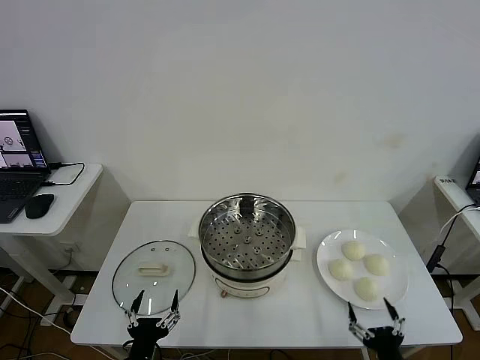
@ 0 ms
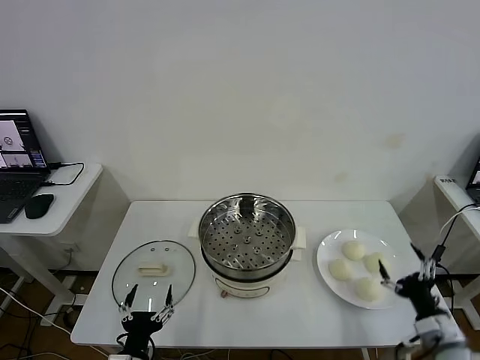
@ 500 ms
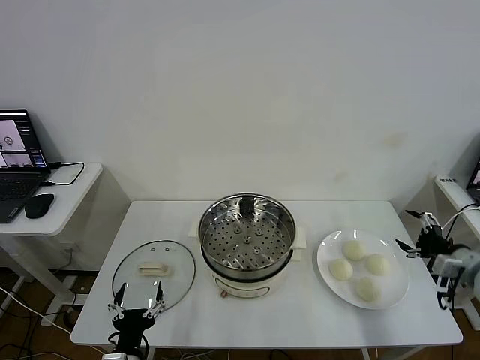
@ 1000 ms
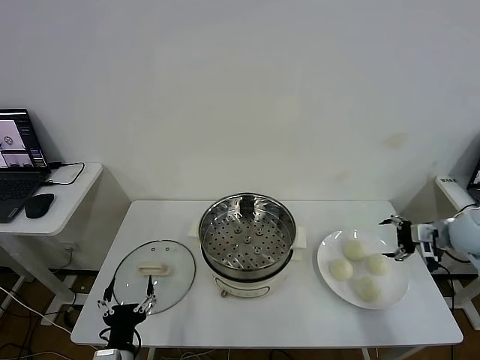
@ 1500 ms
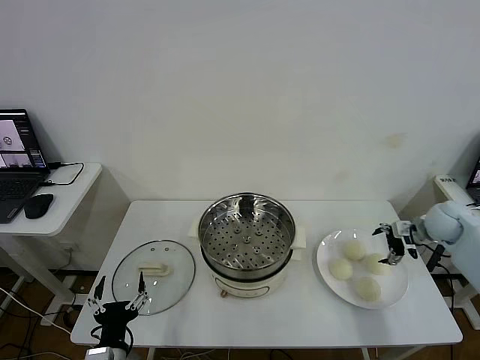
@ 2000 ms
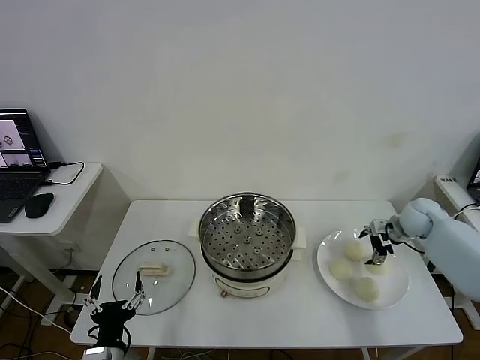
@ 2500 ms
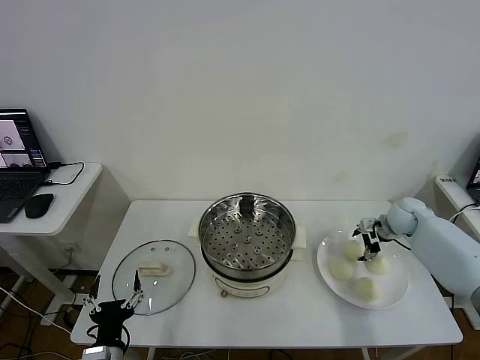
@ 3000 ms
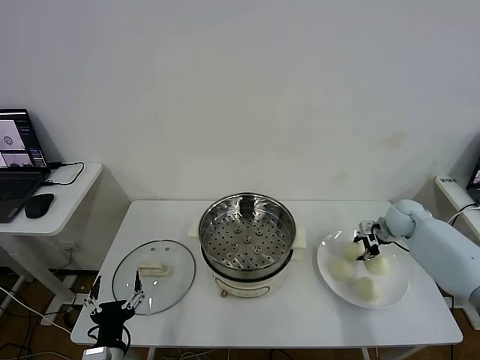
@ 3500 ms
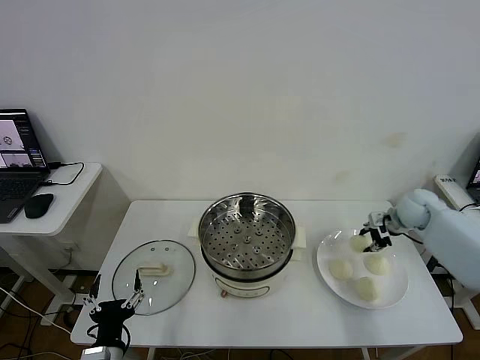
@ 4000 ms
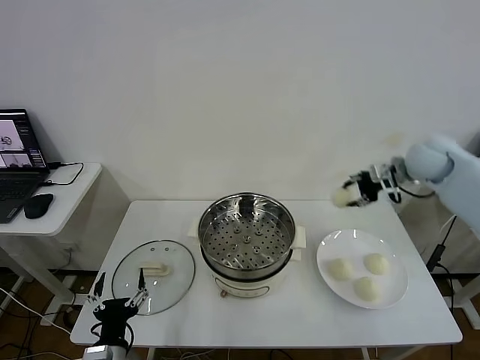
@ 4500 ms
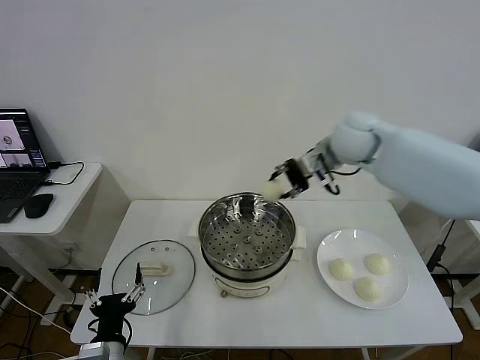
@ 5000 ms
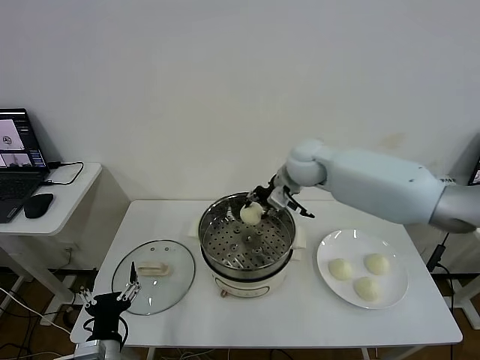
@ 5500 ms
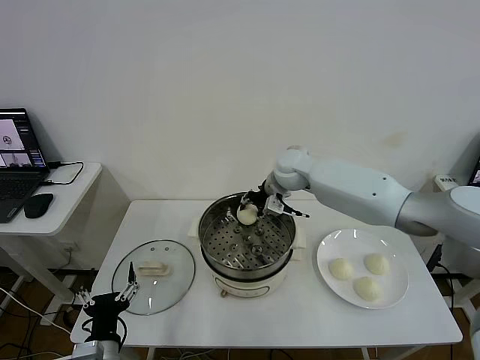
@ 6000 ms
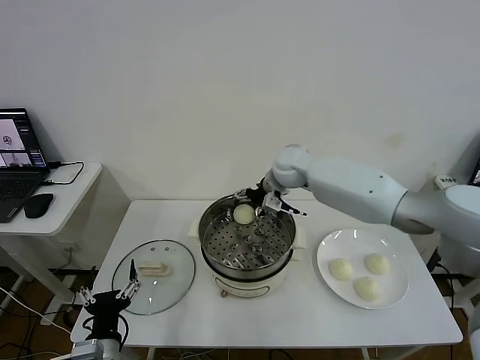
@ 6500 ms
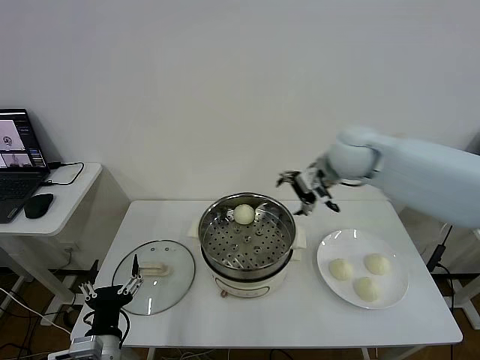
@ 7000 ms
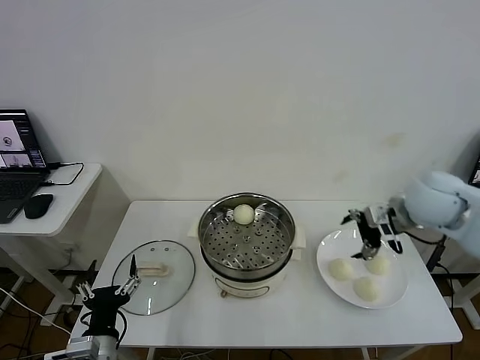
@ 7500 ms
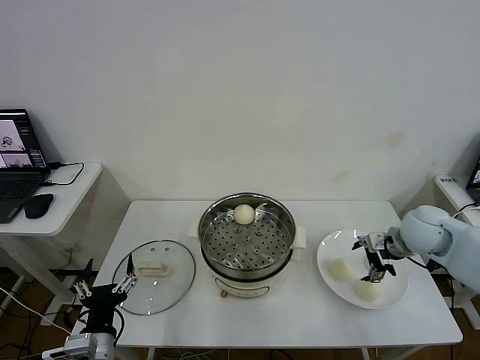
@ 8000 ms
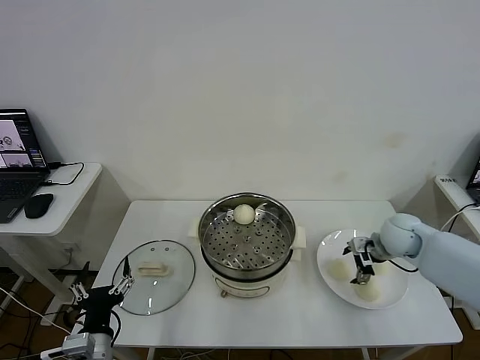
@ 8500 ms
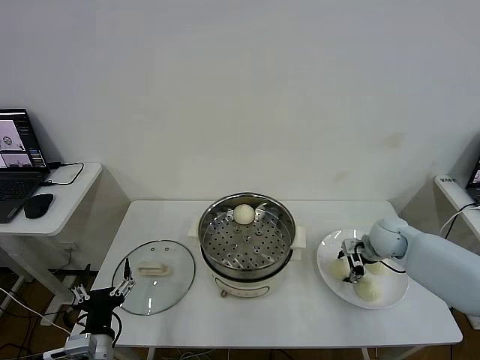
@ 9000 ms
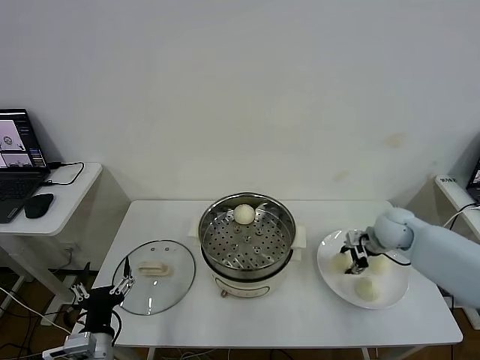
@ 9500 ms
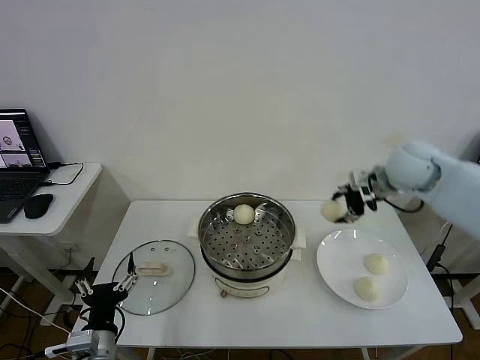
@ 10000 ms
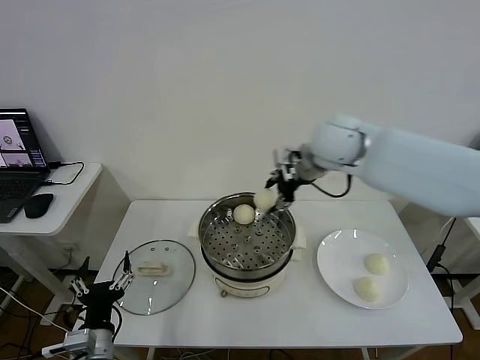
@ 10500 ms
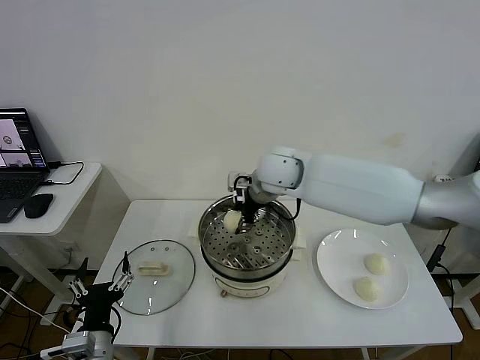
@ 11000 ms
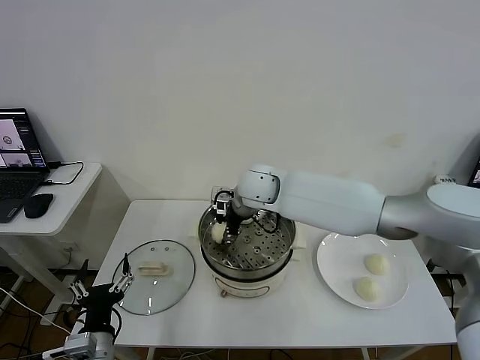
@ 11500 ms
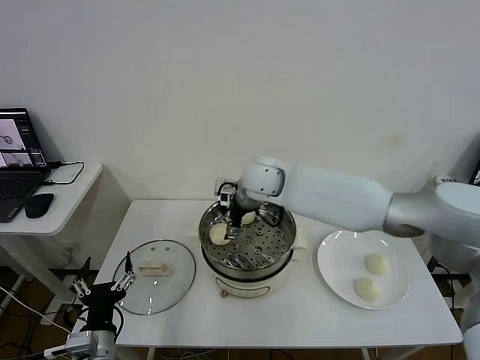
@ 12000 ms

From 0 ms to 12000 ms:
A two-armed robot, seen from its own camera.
Step, from 0 ms to 3000 ms: Grasp the baozi in the plate with right gripper.
Step, from 3500 ms to 6000 ms: Place the baozi on the steamer with right gripper.
Step, from 7000 ms to 9000 ms: Grasp the baozi in the plate with right gripper.
Step, from 9500 ms to 11500 ms: Place the baozi on the steamer with right gripper.
From 2000 ms to 4000 ms: The right gripper shifts by some 5 cm, and closes its fingers.
From 4000 ms to 6000 ms: The right gripper travels to the left by about 35 cm.
From 6000 ms to 8000 ms: The right gripper heads to the right and backward, covering some 30 cm, and opens up.
From 8000 ms to 10000 ms: The right gripper travels upward and to the left by some 20 cm, and closes up.
From 10000 ms to 12000 ms: The right gripper goes some 25 cm to the left, and opens.

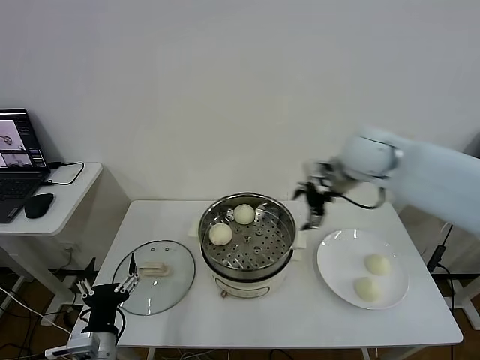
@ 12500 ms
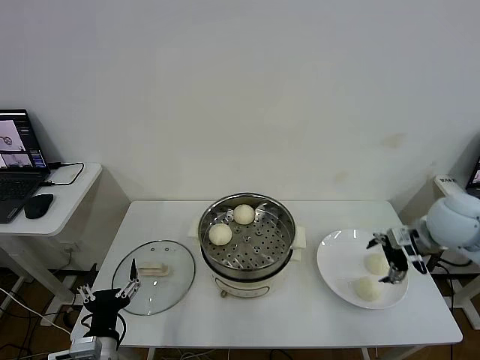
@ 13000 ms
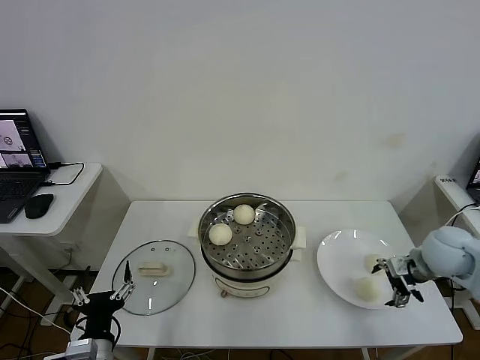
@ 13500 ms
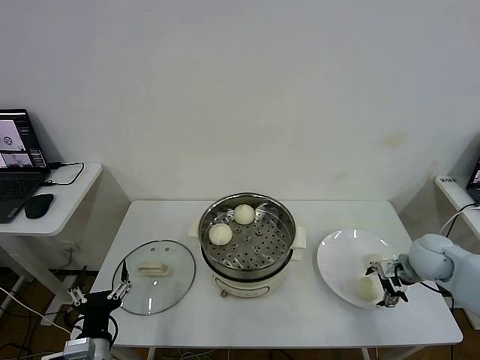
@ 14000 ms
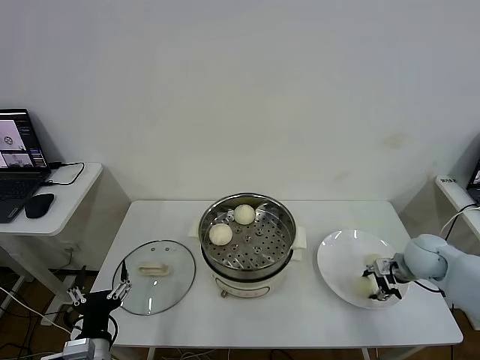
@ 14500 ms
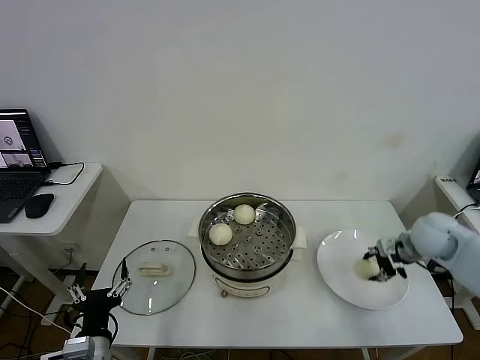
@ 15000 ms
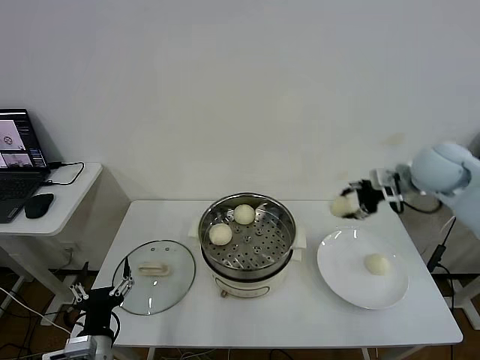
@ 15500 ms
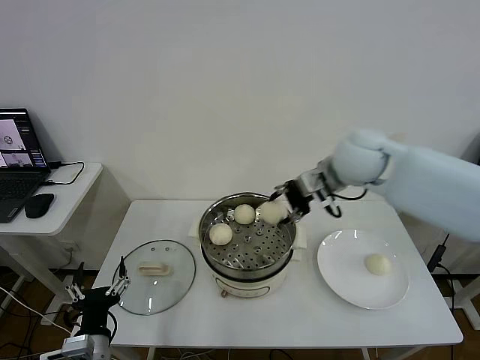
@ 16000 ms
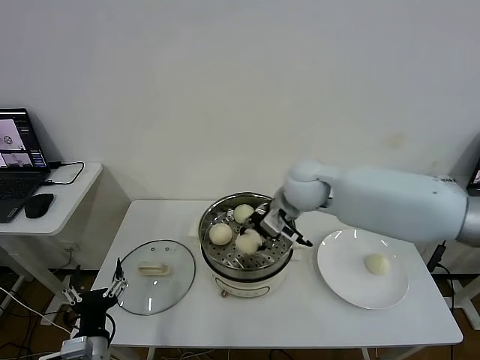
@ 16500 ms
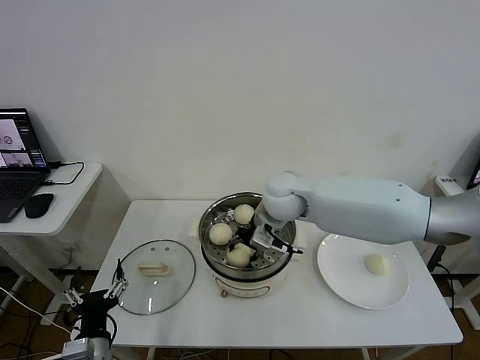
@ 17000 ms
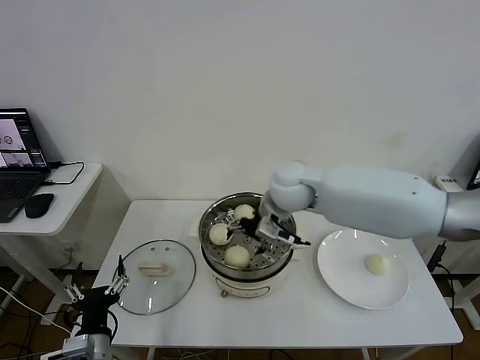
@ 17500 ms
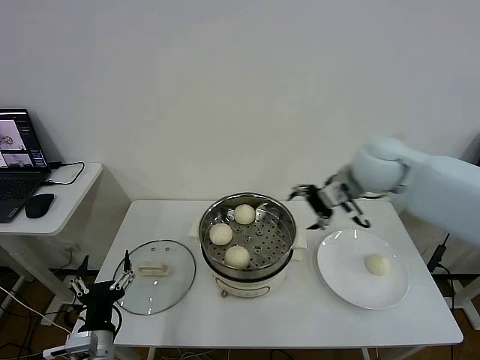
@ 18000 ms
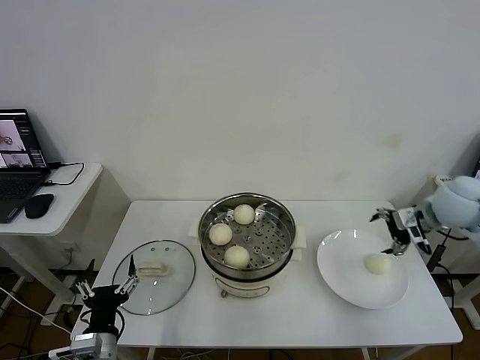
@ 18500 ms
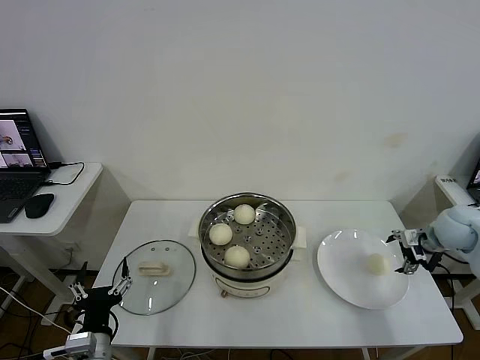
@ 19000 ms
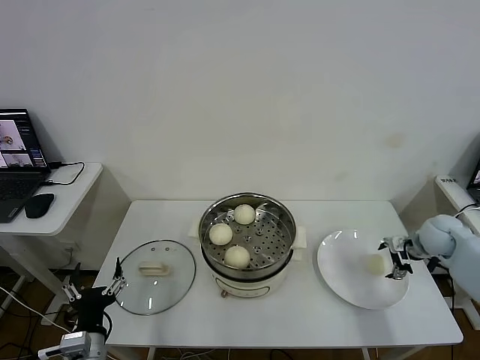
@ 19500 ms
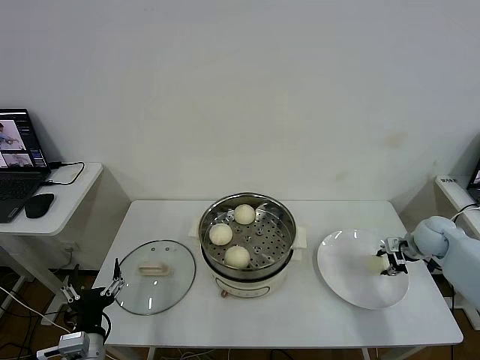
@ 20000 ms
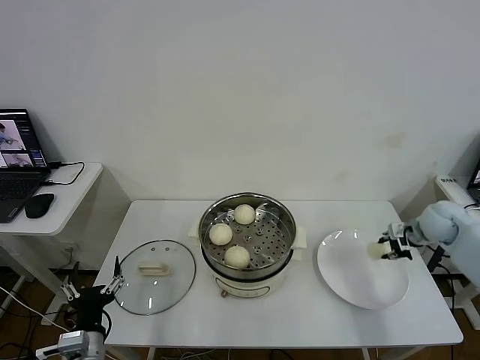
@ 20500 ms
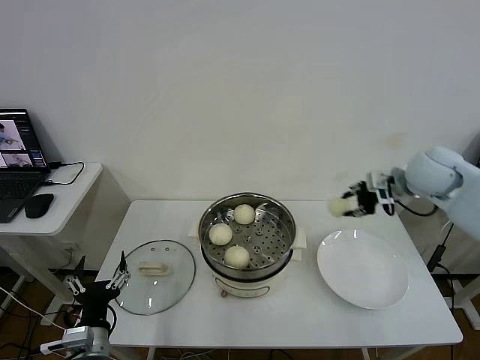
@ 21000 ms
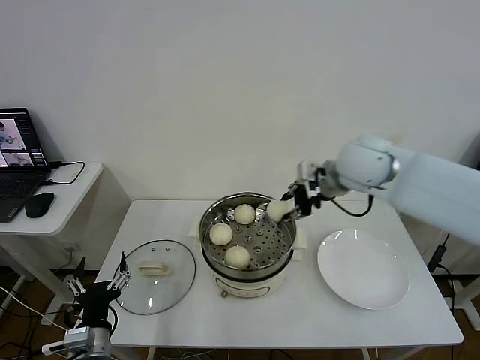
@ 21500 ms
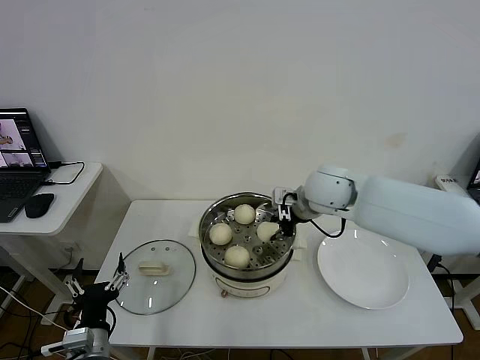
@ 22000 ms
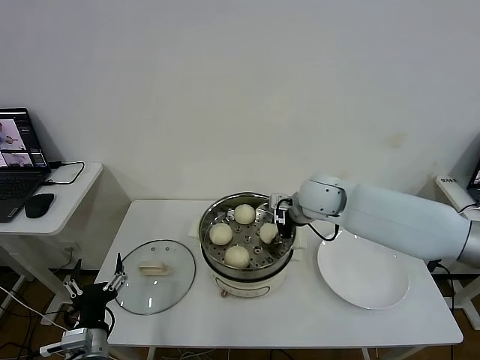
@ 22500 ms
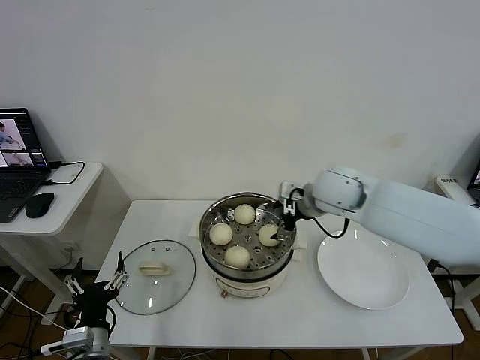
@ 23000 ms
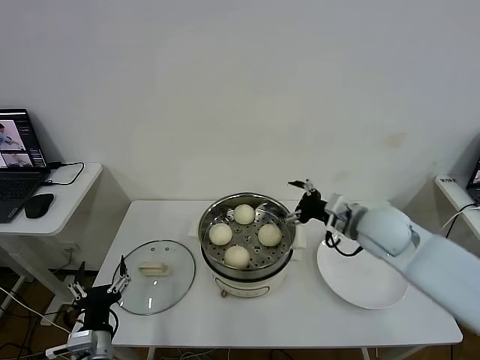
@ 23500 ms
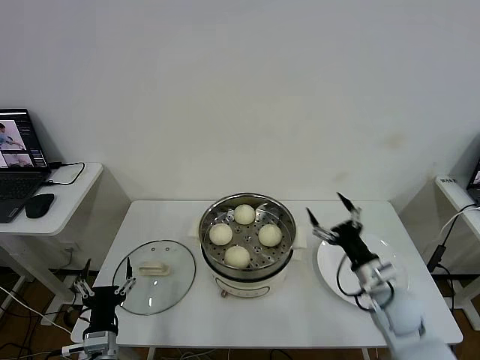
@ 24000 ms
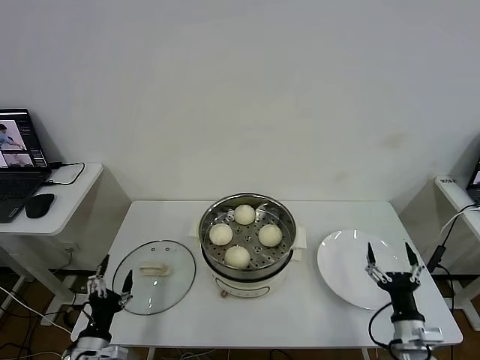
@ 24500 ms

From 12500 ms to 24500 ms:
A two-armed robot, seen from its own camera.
Step, from 12500 ms to 14500 ms: Grasp the baozi in the plate with right gripper.
Step, from 15000 ms to 17000 ms: Place the baozi on the steamer with right gripper.
Step, from 17500 ms to 20000 ms: Grasp the baozi in the plate with right gripper.
Step, from 20500 ms to 22500 ms: Place the baozi on the steamer with right gripper.
From 12500 ms to 14500 ms: The right gripper is displaced downward and to the right by approximately 25 cm, and closes its fingers.
From 14500 ms to 16500 ms: The right gripper travels to the left and upward by about 35 cm.
From 16500 ms to 18500 ms: The right gripper travels to the right by approximately 30 cm, and opens up.
From 18500 ms to 20500 ms: The right gripper shifts about 10 cm downward, and closes its fingers.
From 20500 ms to 22500 ms: The right gripper goes roughly 30 cm to the left.
From 22500 ms to 24500 ms: The right gripper is displaced backward, downward and to the right by about 40 cm, and opens its fingers; the left gripper moves downward, some 5 cm.

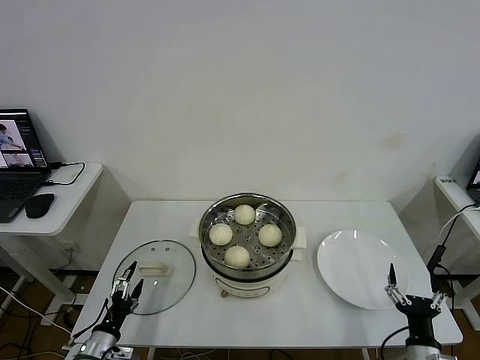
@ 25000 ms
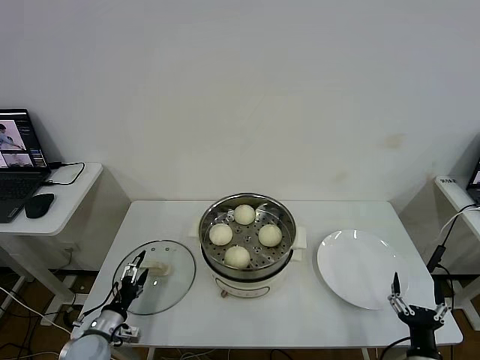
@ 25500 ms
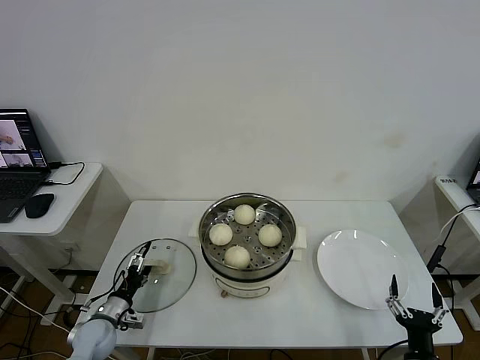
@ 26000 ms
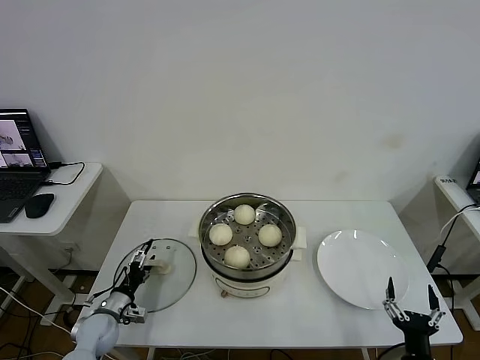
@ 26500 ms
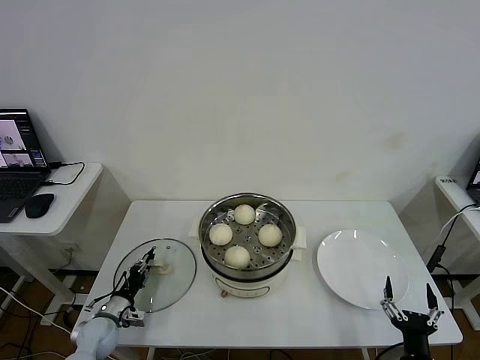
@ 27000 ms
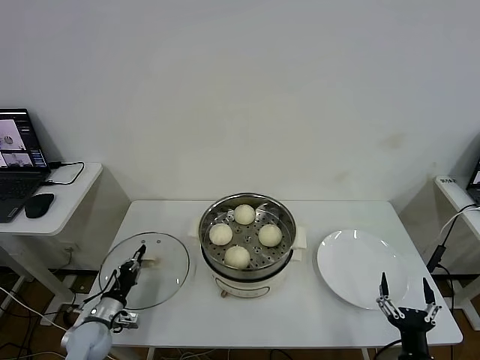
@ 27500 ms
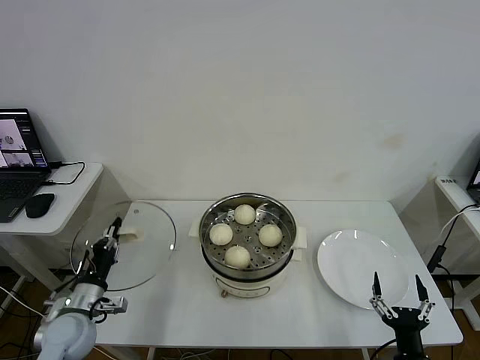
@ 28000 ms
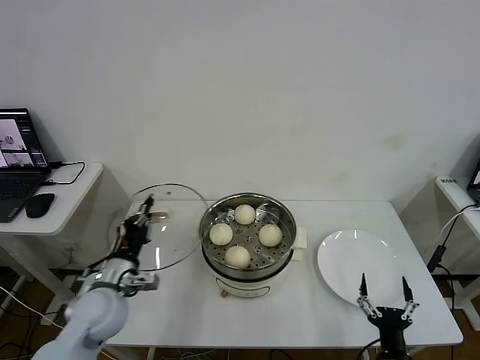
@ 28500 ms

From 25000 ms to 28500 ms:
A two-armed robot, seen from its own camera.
Step, from 25000 ms to 27000 ms: Grasp the pot lid with left gripper.
From 25000 ms to 27000 ms: The left gripper moves forward, about 10 cm, and closes up.
From 27000 ms to 28500 ms: The left gripper moves upward and to the right, some 20 cm, and closes its fingers.
